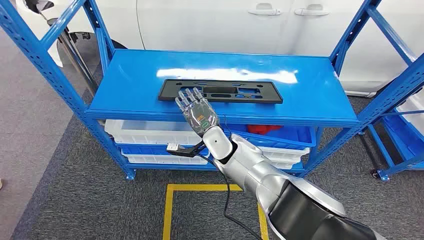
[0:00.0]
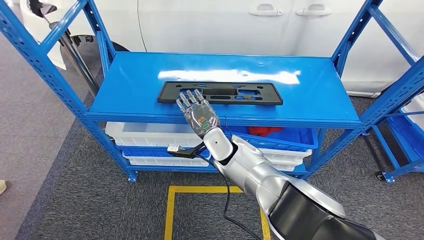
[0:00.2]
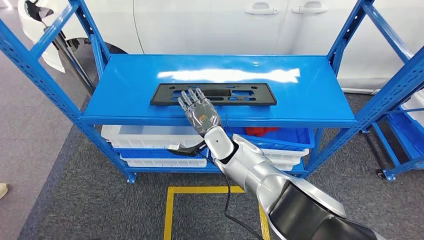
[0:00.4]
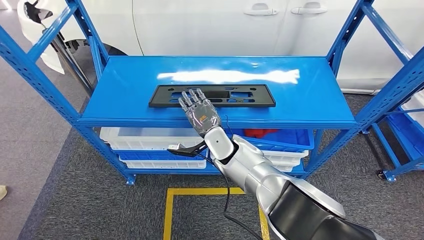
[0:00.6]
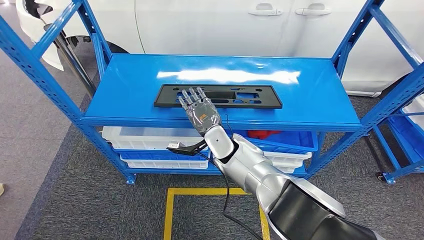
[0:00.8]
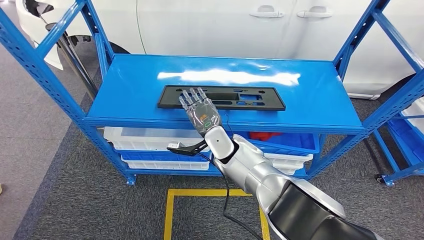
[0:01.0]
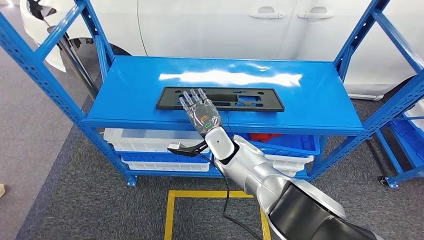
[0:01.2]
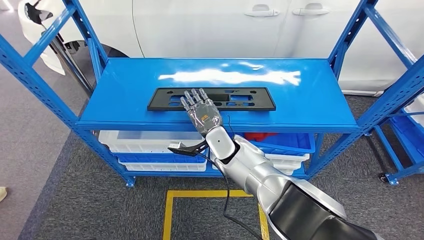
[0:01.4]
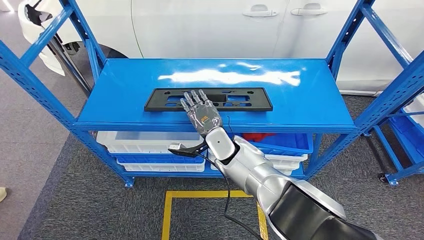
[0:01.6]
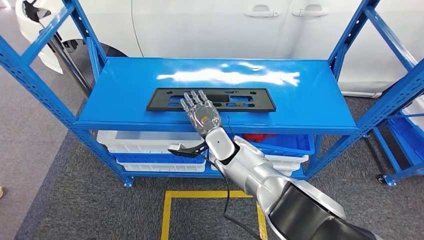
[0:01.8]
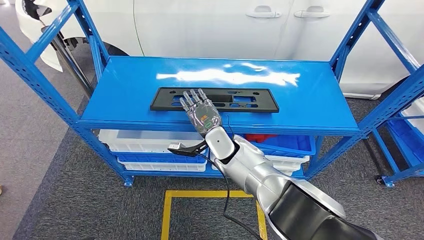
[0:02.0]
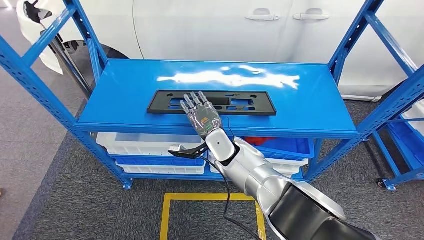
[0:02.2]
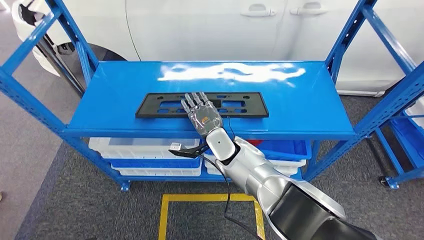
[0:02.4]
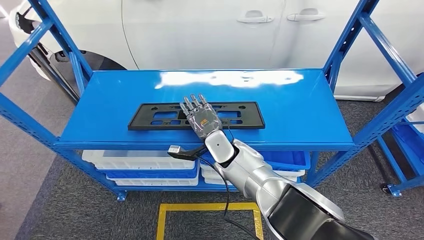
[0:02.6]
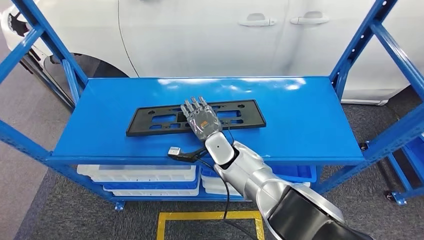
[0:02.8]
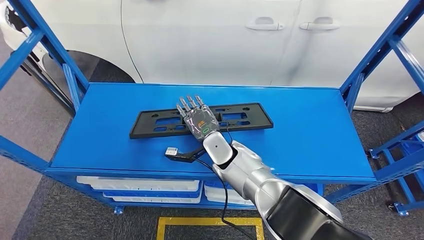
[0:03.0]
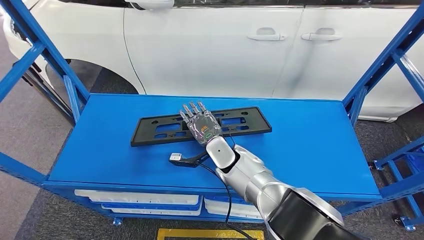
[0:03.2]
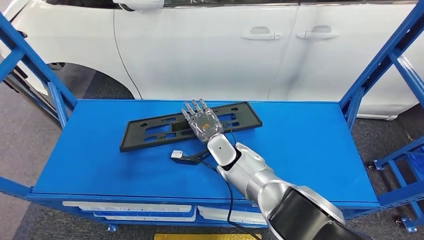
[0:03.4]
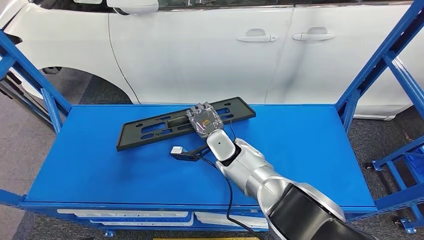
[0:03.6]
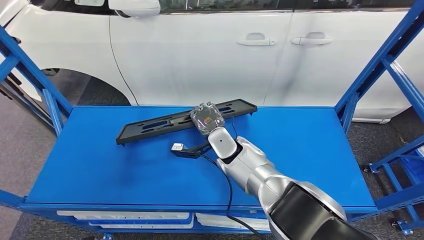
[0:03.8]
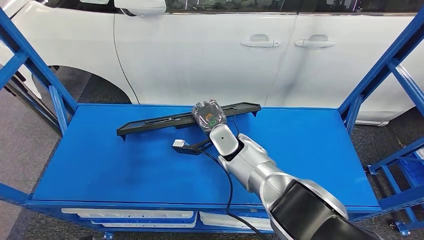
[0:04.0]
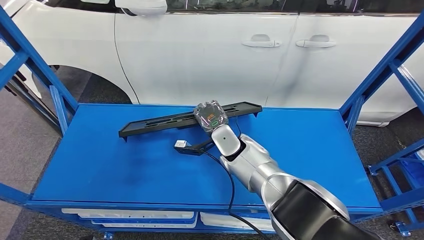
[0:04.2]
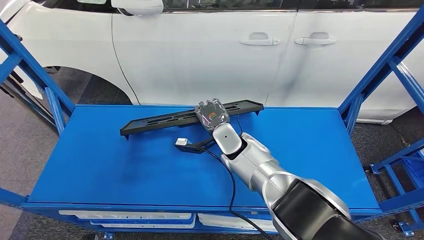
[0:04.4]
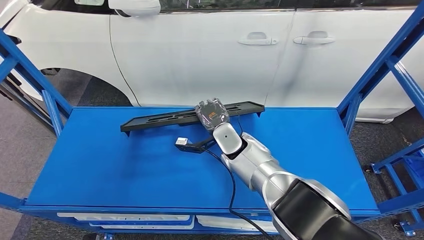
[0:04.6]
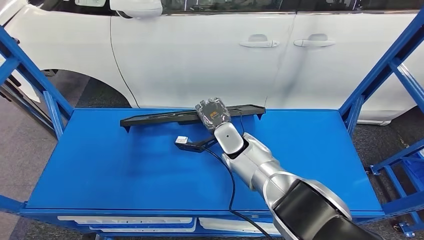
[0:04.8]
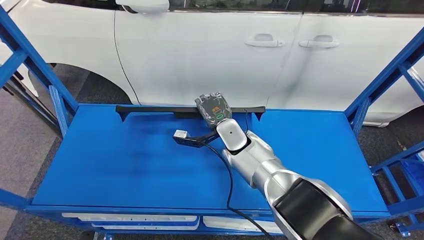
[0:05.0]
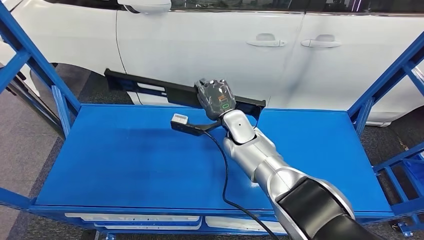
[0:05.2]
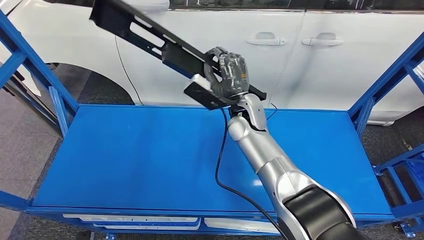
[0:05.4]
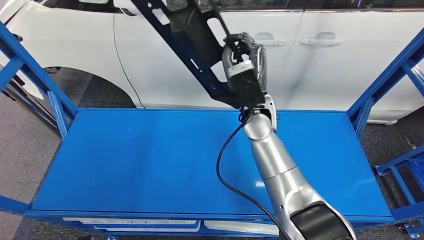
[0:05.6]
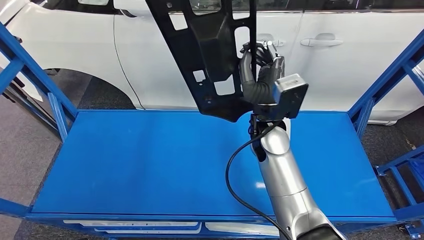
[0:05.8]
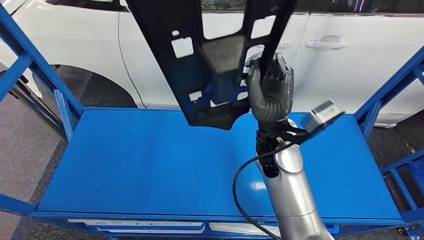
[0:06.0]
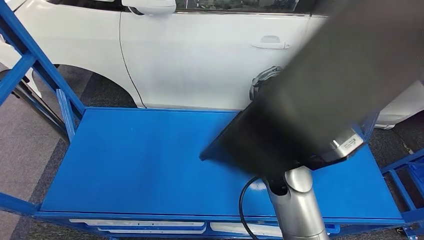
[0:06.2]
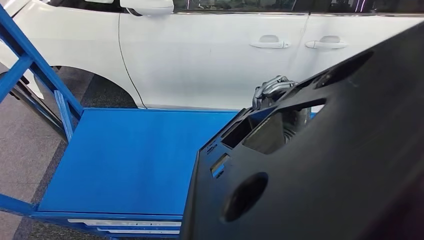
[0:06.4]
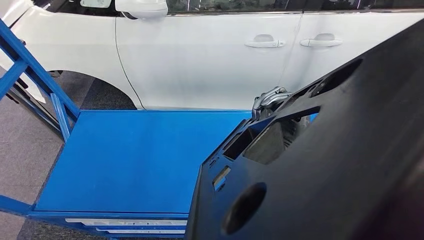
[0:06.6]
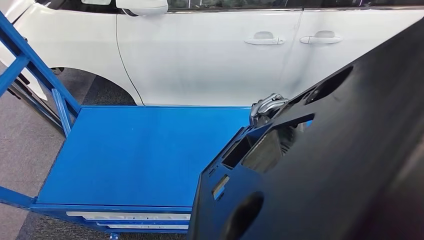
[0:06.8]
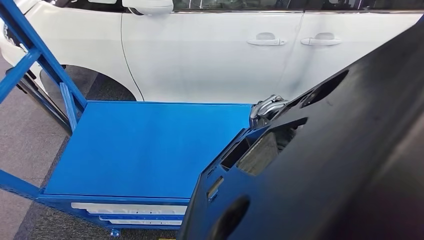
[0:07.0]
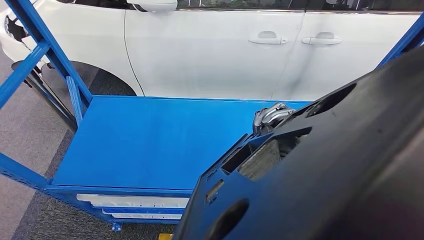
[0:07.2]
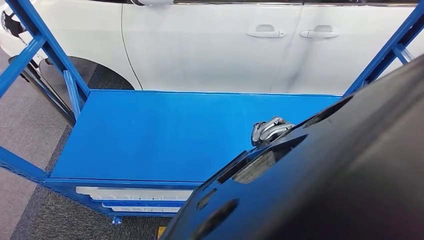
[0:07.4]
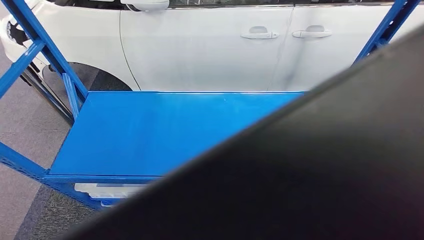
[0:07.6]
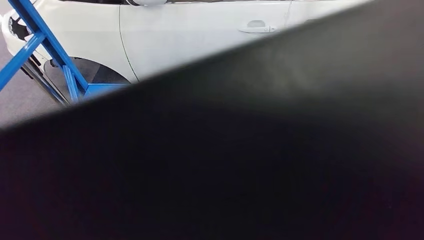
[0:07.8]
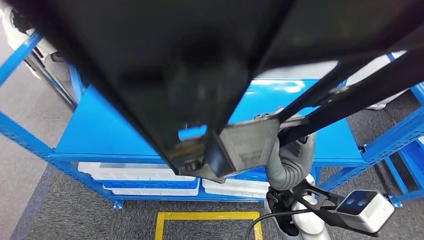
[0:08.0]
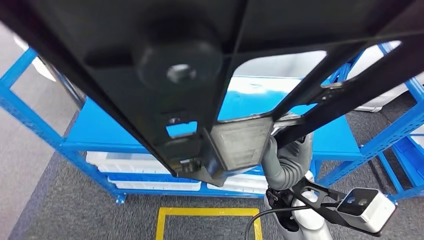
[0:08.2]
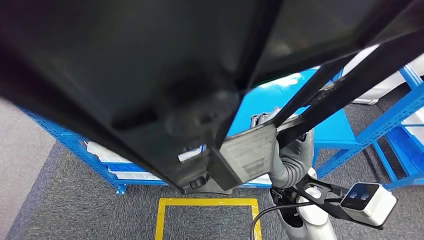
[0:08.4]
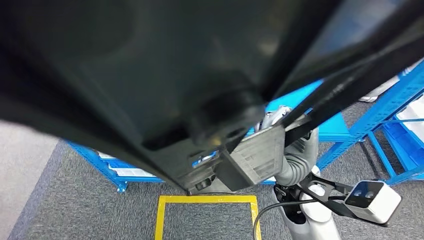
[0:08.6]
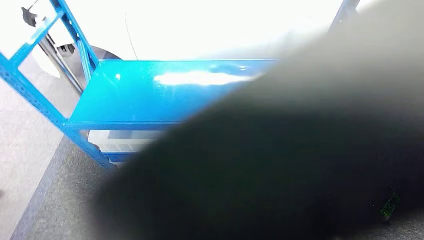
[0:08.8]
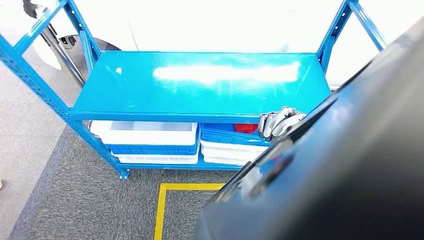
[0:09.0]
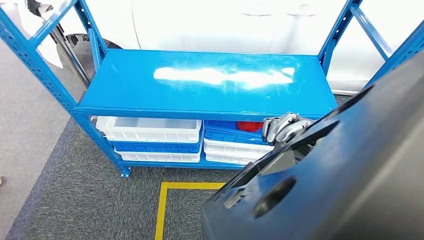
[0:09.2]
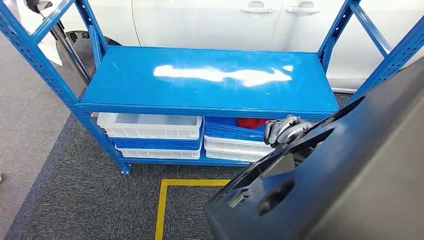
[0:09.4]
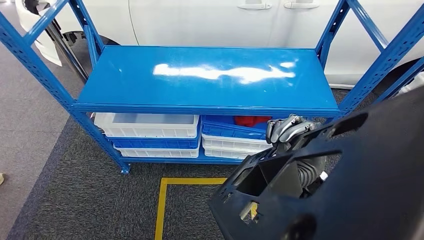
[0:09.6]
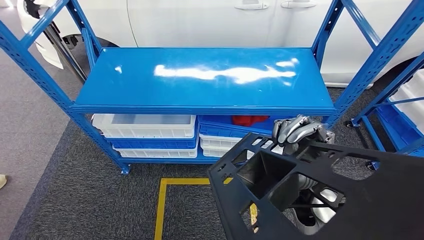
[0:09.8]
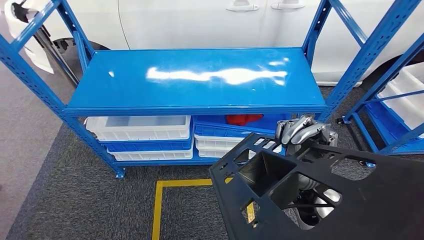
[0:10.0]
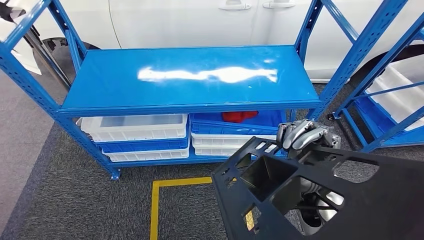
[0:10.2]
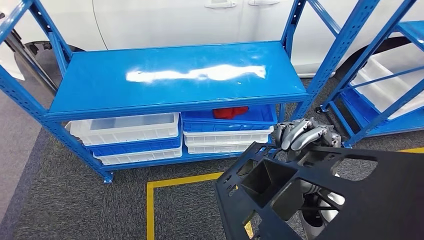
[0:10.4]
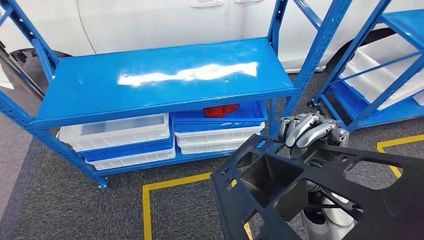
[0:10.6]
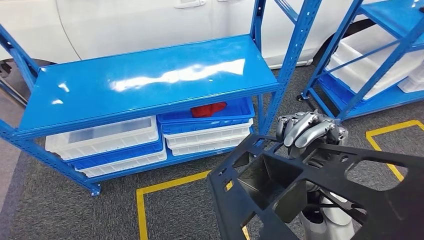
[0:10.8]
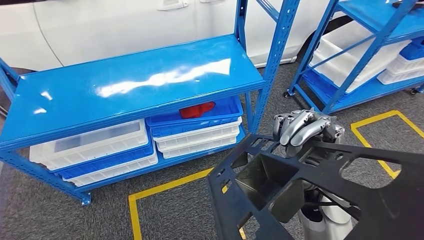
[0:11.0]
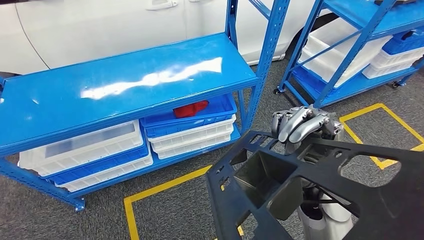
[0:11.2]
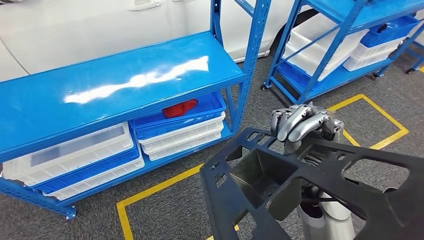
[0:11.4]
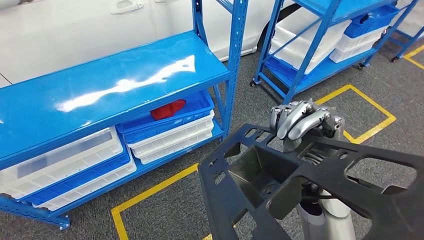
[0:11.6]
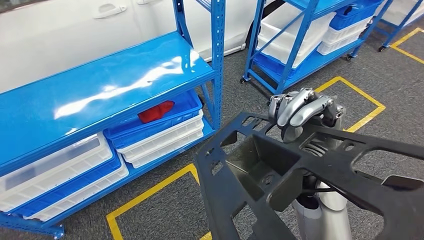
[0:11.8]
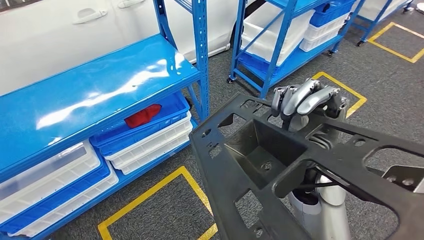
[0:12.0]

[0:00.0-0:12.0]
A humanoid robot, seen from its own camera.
Step, 0:00.0 to 0:05.4: Pick up the large parts from the shelf.

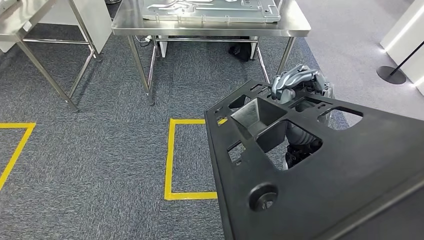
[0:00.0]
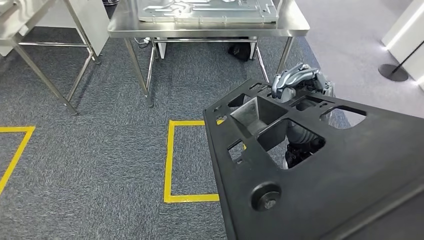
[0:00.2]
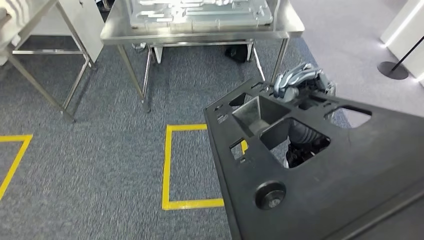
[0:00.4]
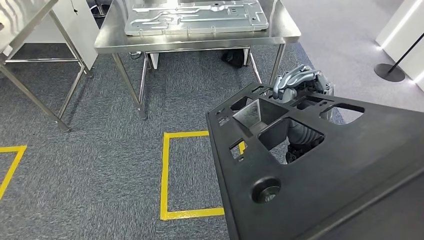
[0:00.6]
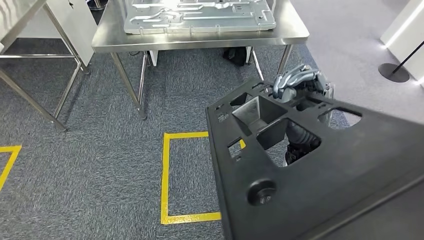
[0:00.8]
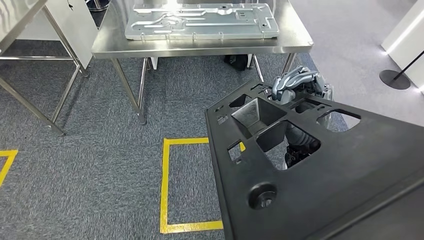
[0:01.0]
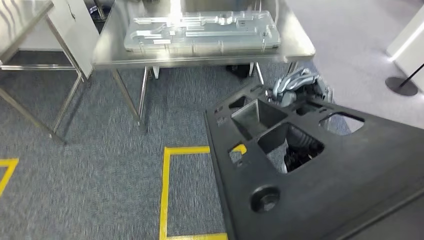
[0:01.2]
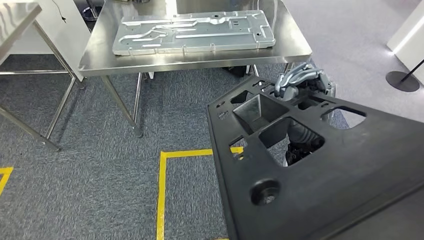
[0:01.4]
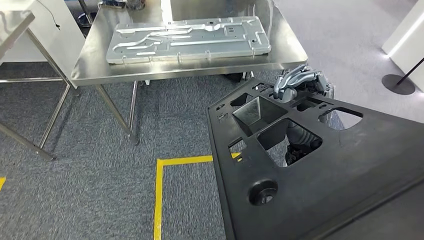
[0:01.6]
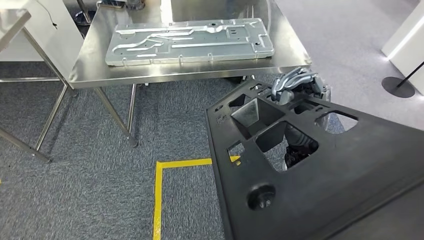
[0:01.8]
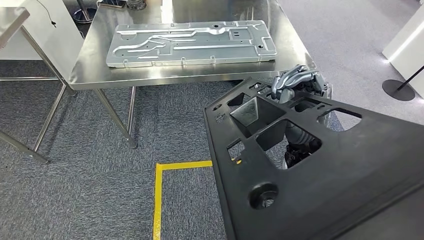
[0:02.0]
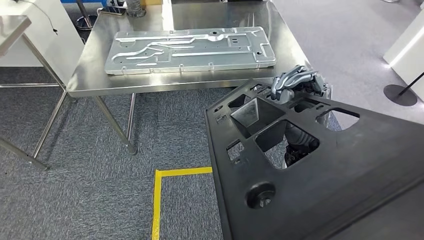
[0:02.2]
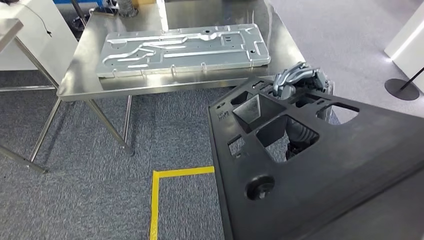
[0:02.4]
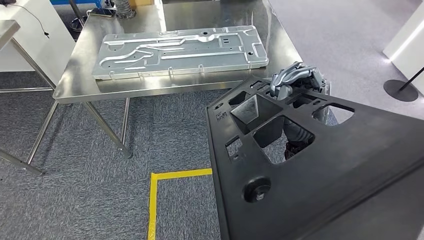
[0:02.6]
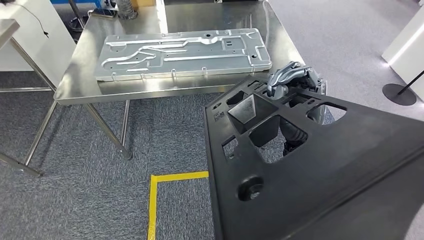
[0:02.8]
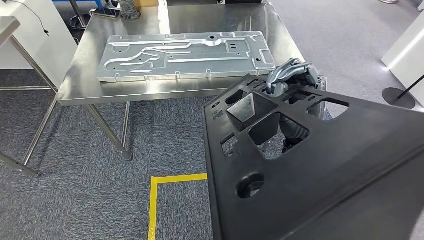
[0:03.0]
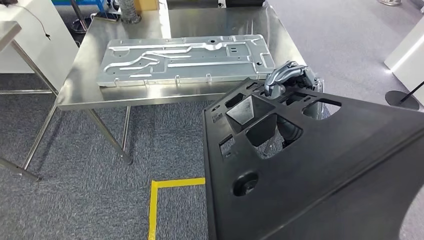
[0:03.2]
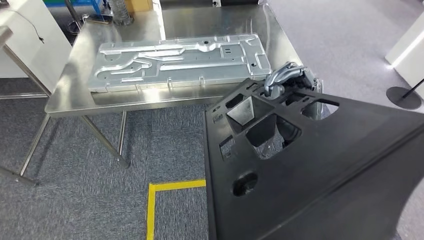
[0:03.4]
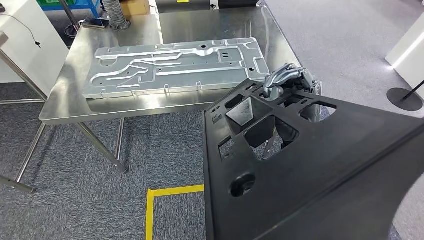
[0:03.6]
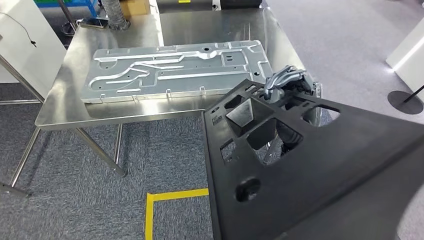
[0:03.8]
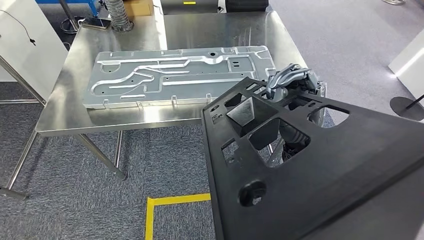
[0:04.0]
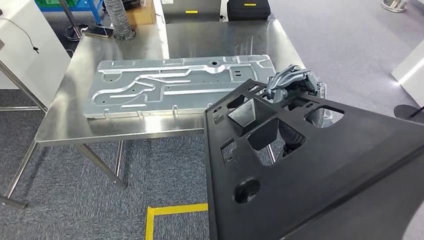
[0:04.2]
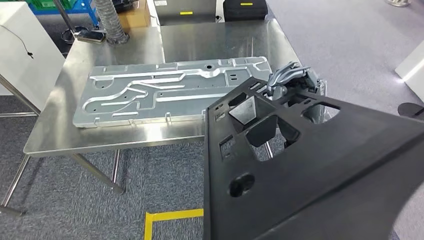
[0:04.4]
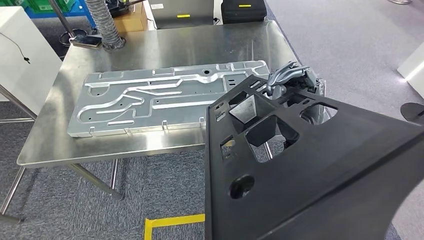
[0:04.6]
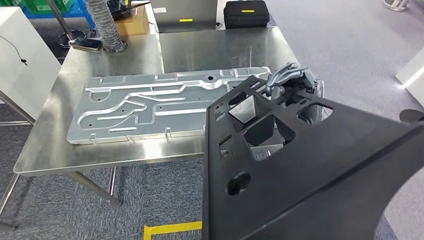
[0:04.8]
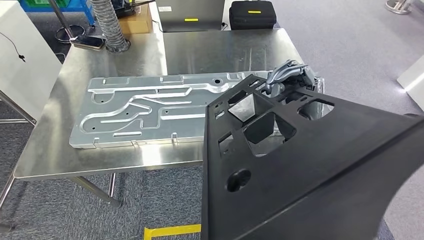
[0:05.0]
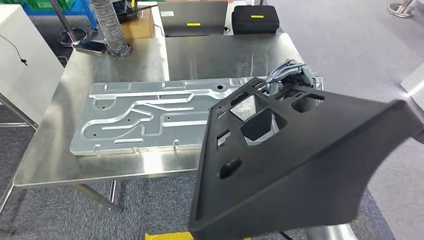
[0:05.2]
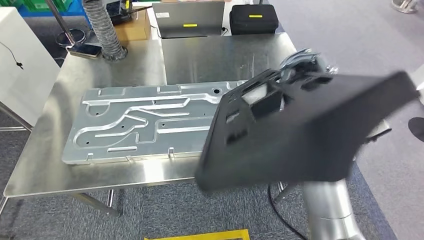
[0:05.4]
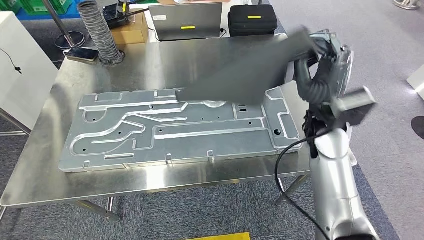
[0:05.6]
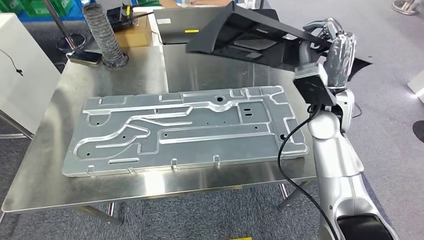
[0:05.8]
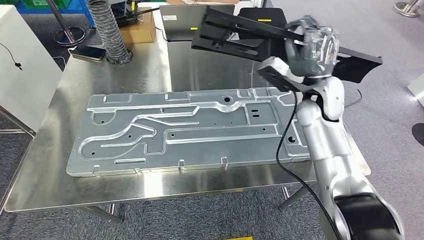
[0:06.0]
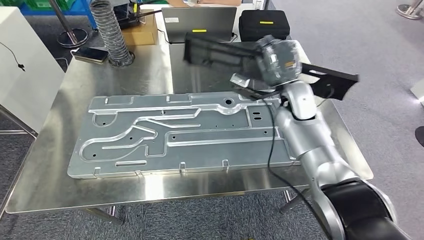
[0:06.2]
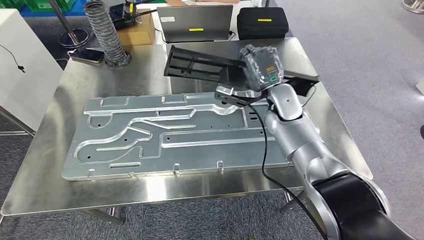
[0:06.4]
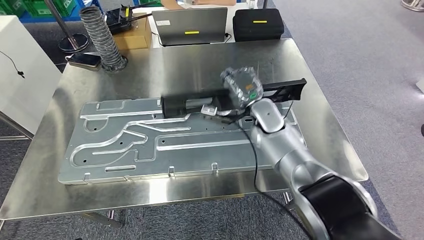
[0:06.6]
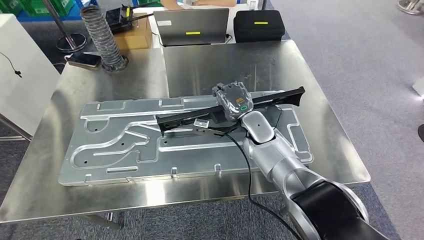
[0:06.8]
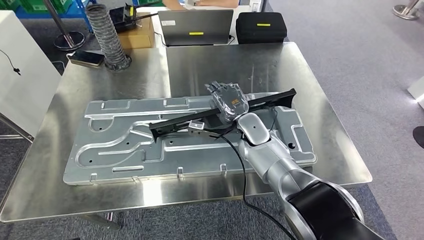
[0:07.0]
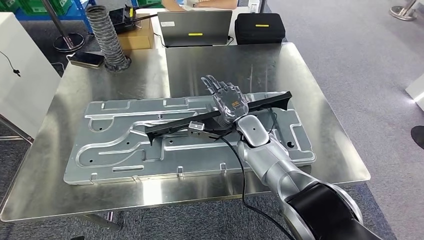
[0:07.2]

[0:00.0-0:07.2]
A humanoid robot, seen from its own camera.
Step, 0:00.0 to 0:05.4: Move the large parts to the workbench.
